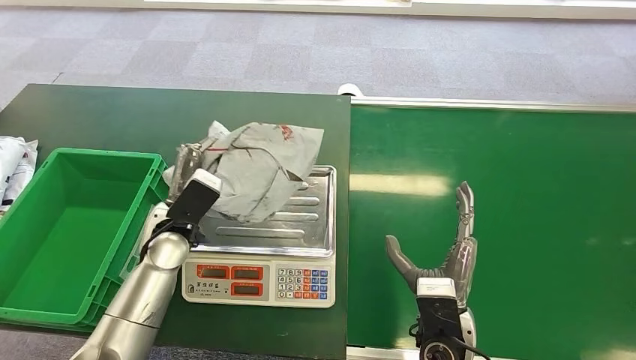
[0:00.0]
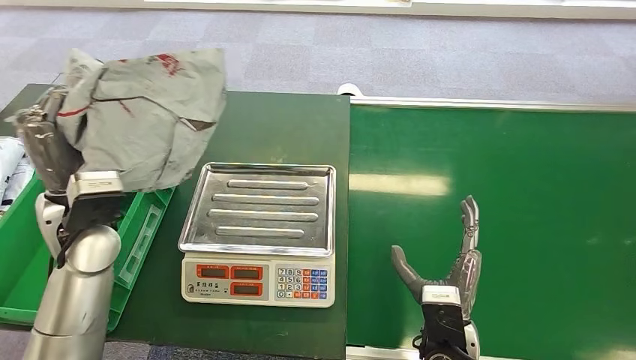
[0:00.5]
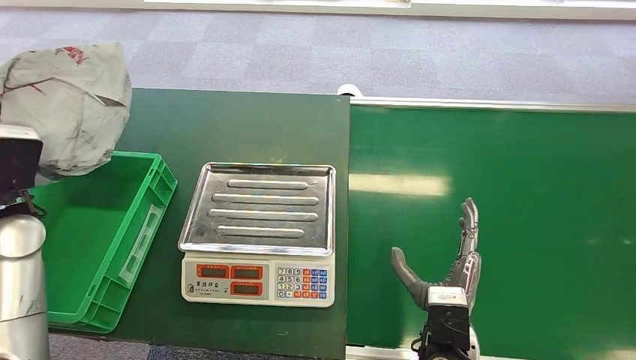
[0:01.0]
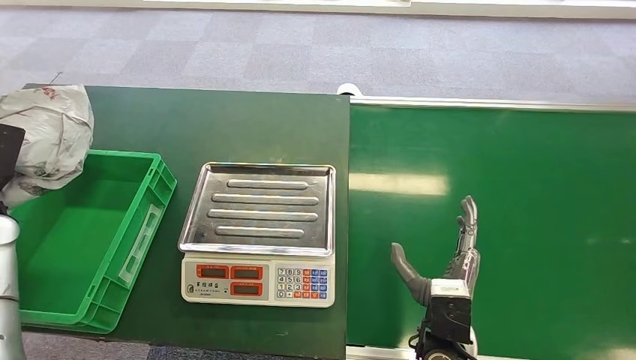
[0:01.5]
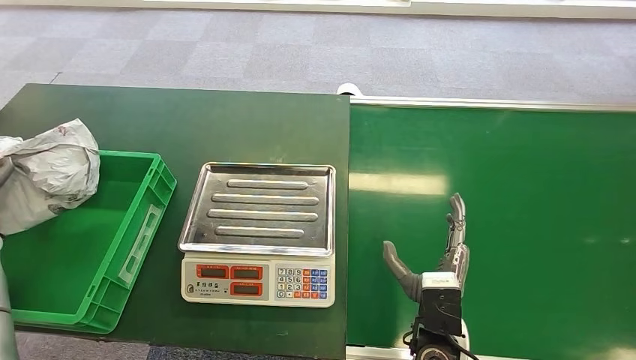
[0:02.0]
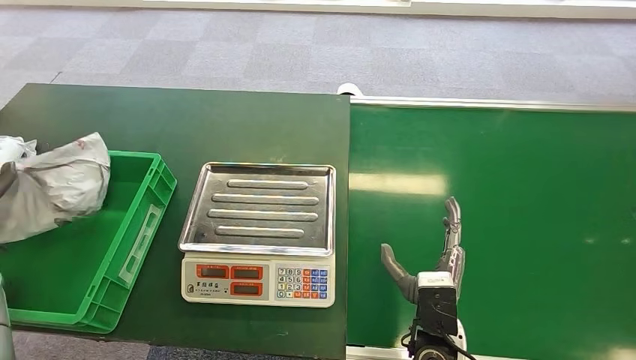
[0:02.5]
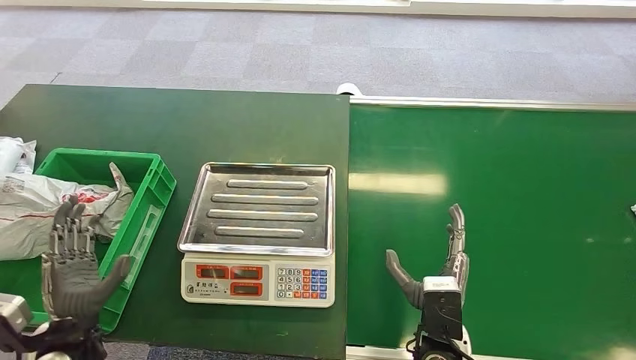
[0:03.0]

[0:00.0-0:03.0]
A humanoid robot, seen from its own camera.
Step, 0:01.0 to 0:03.0: Place the package into the parcel locker.
0:00.0 to 0:01.5: The left hand goes roughly 30 cm to the left.
0:01.5 to 0:03.0: The left hand goes approximately 25 cm to the right, backward and downward.

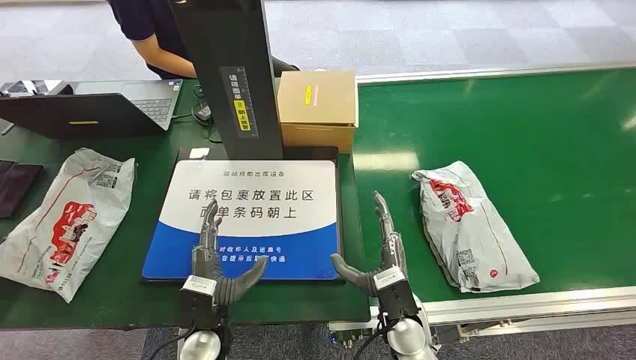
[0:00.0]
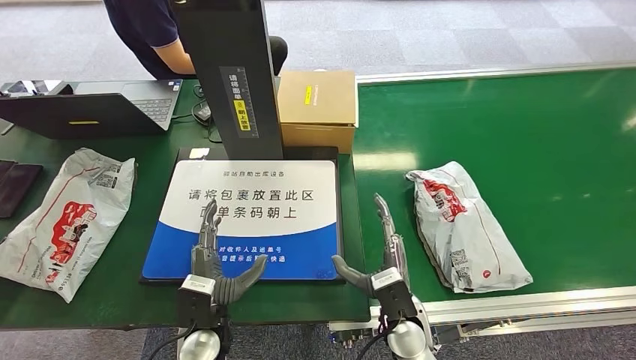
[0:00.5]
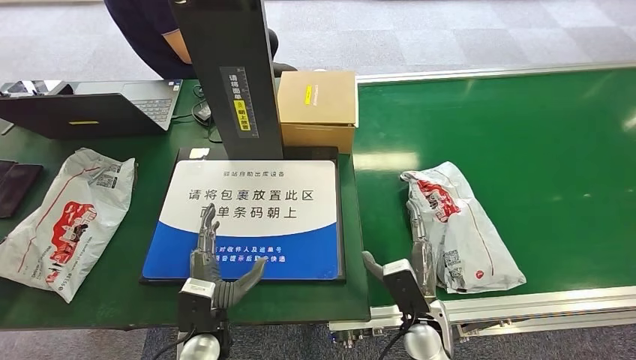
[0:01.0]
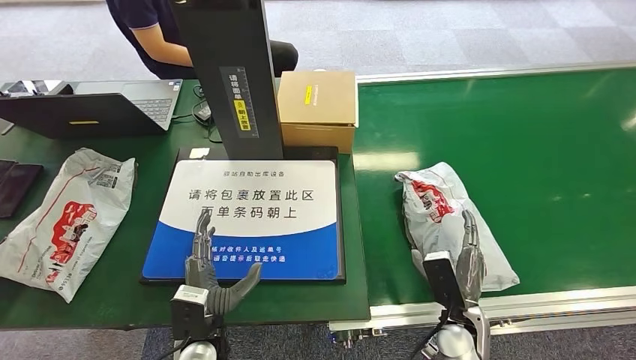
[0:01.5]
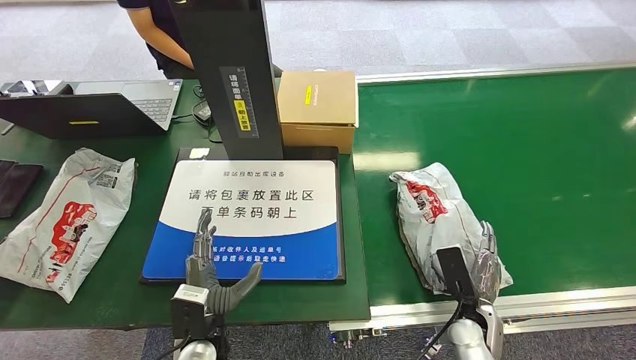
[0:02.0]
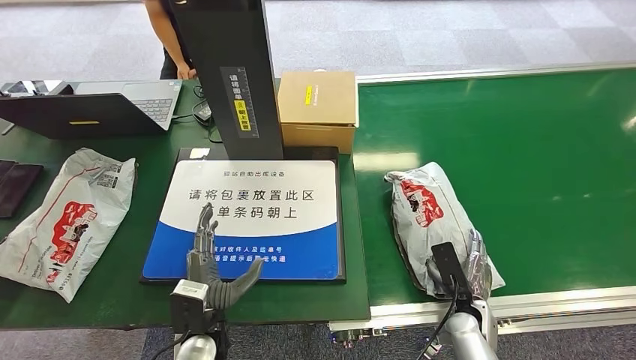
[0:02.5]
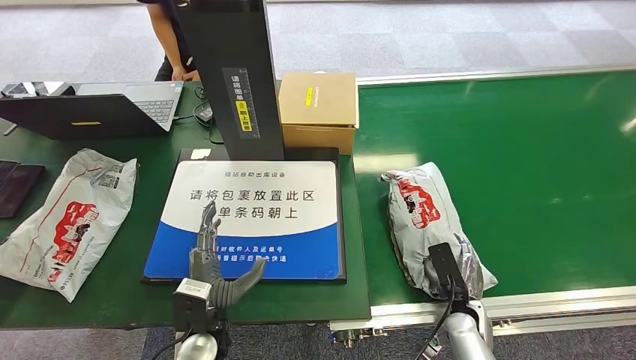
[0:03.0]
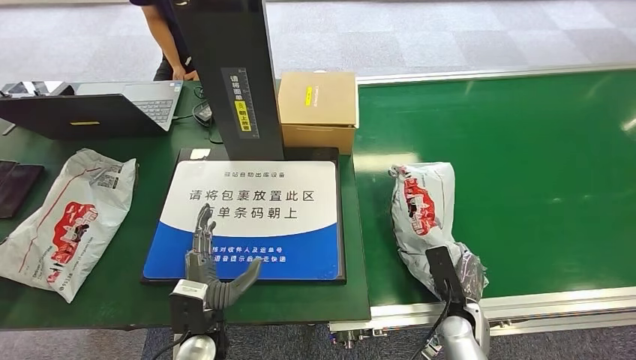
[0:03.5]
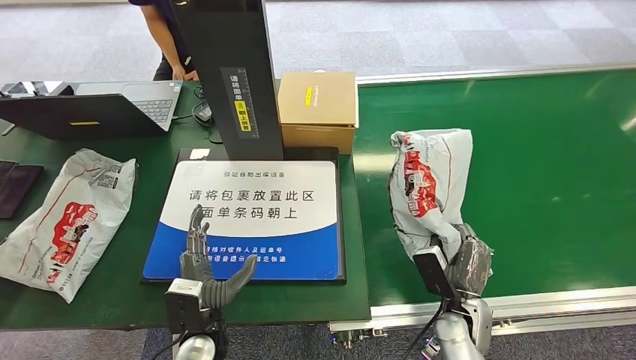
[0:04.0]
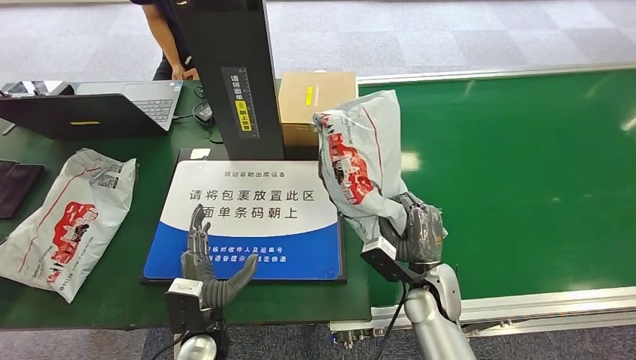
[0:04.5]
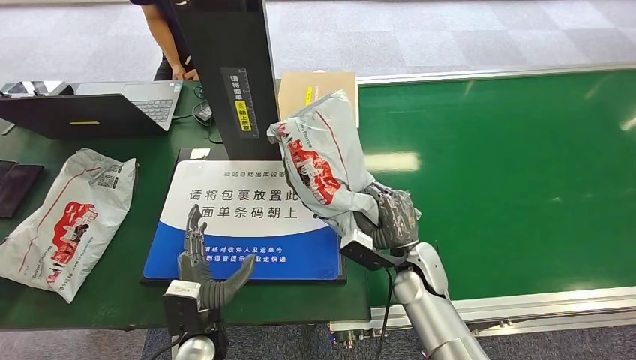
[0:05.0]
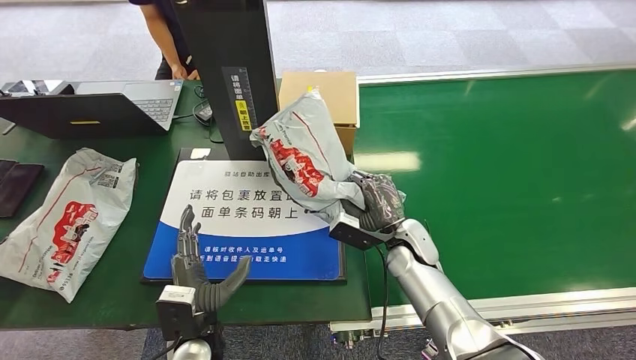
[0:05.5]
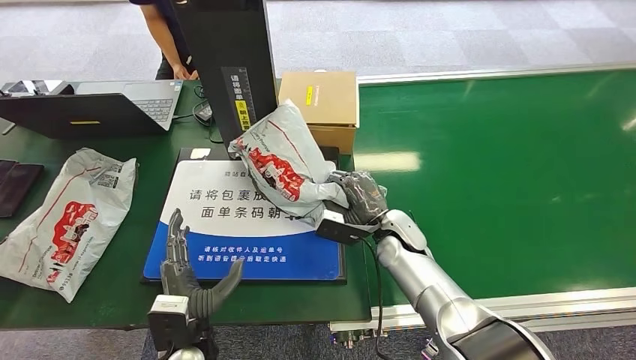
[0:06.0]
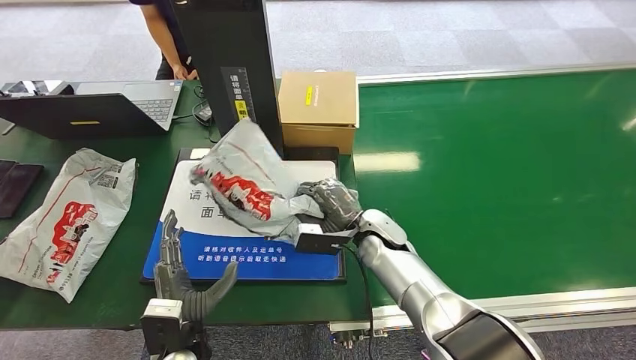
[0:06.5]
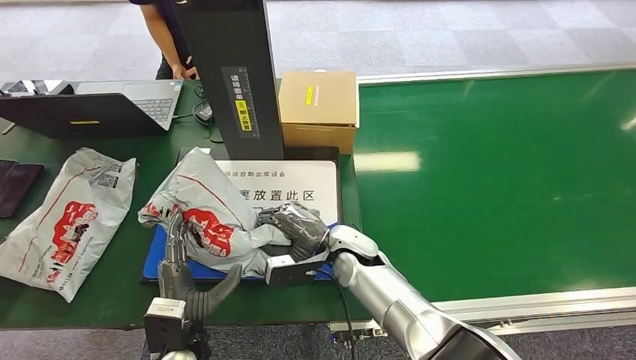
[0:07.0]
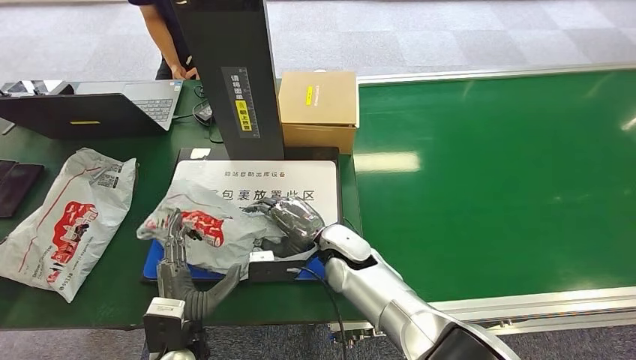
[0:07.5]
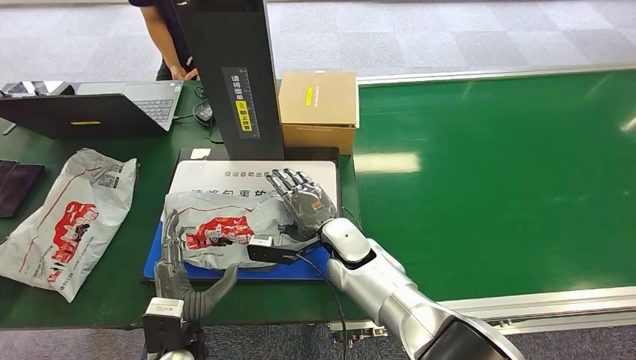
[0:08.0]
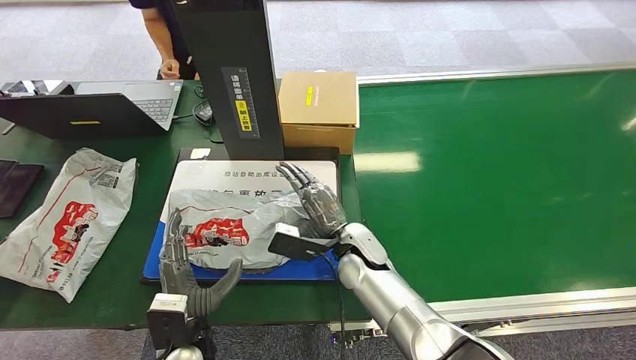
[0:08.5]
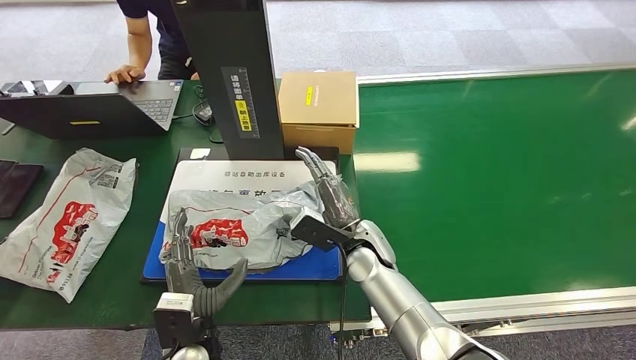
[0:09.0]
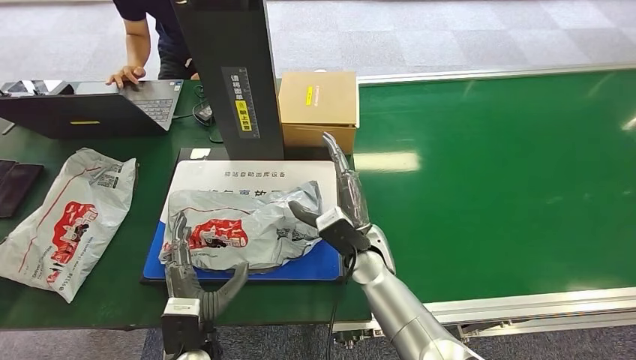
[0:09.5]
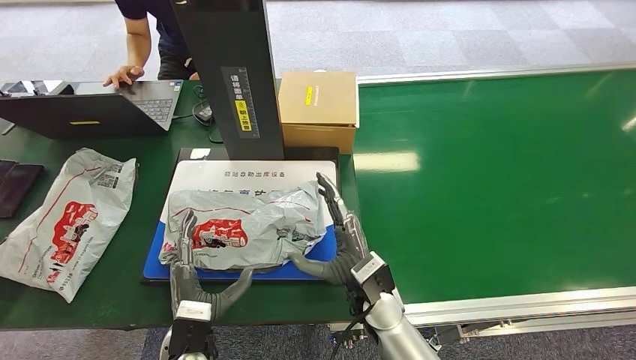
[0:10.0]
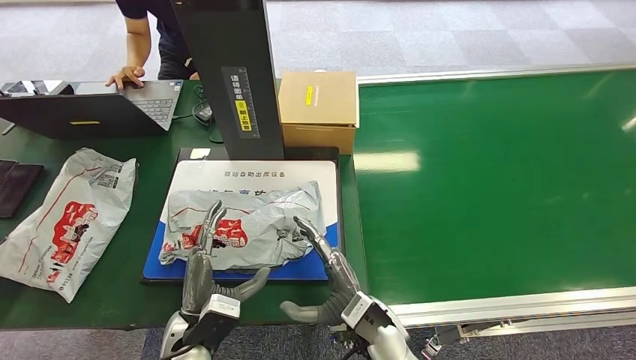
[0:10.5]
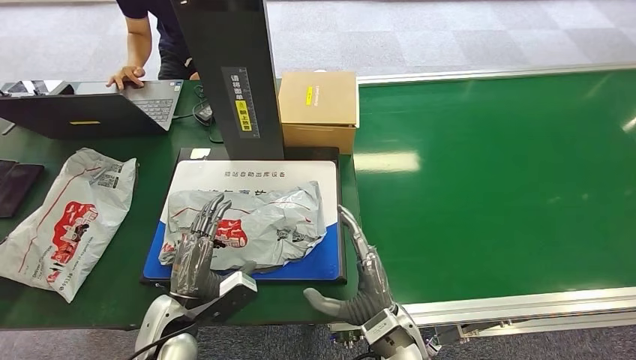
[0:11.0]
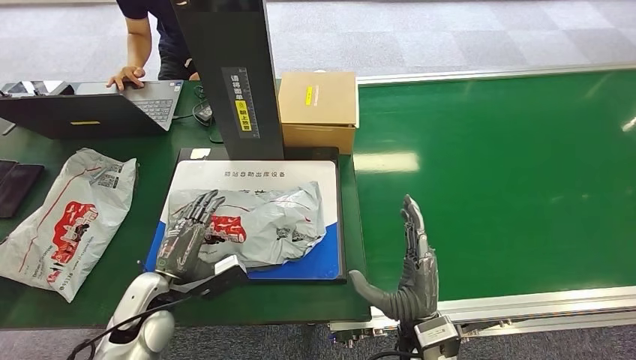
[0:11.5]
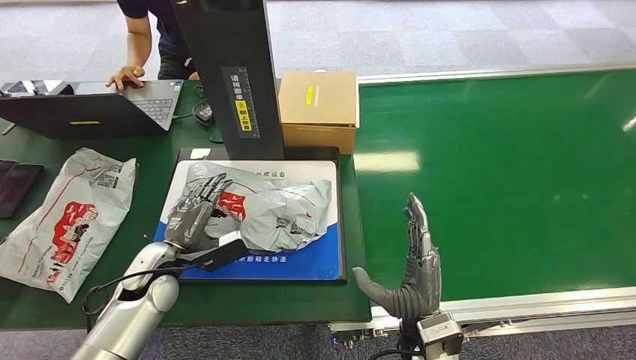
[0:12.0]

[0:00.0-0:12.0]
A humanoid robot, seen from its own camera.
Step, 0:00.0 to 0:04.5: Pick up the package from the conveyor belt.
Step, 0:05.0 to 0:09.0: Place the package onto the inbound machine.
0:02.0 to 0:04.0: The hands make only small movements.
0:04.0 to 0:06.0: The right hand is displaced forward, to the left and upward by about 20 cm.
0:06.0 to 0:08.0: The right hand shifts roughly 10 cm to the left.
0:08.0 to 0:10.0: The right hand moves backward, roughly 10 cm.
0:10.0 to 0:12.0: The left hand heads forward and to the left, covering some 15 cm. The right hand shifts approximately 10 cm backward and to the right.

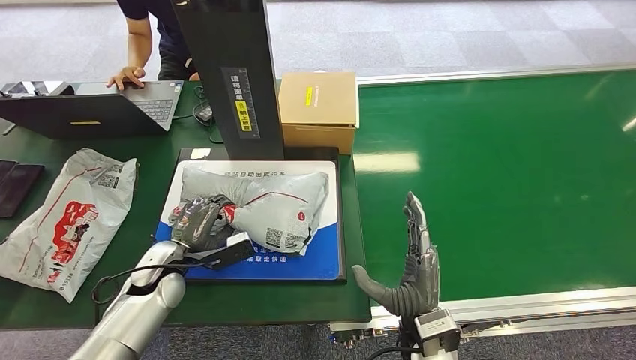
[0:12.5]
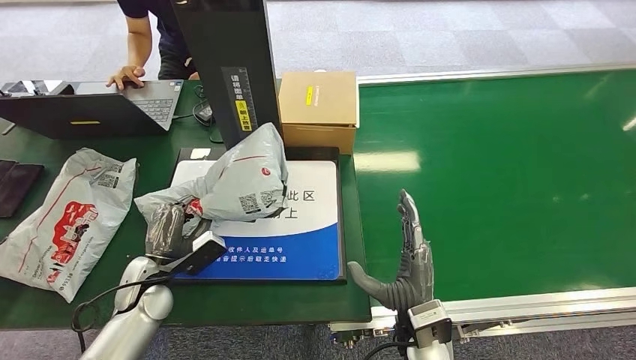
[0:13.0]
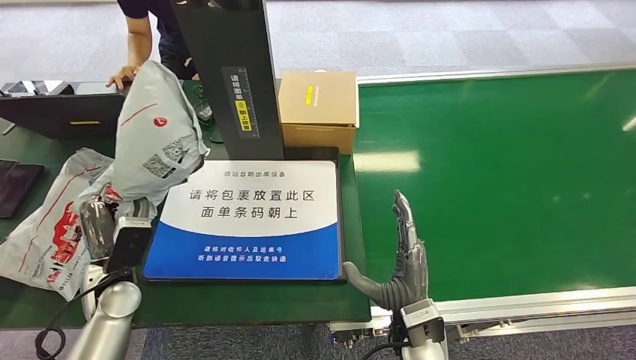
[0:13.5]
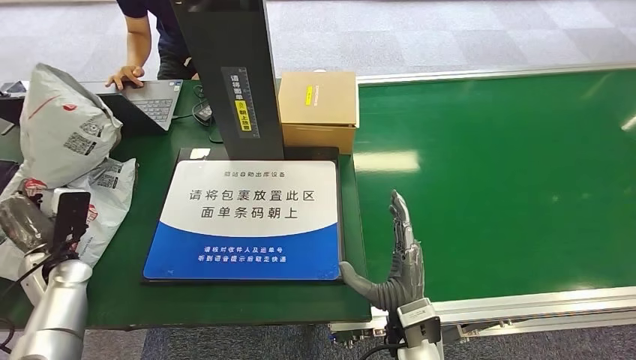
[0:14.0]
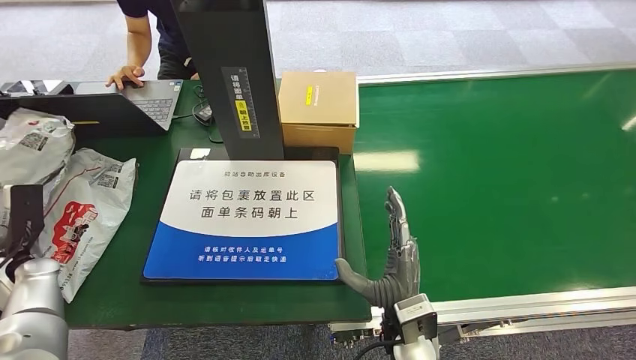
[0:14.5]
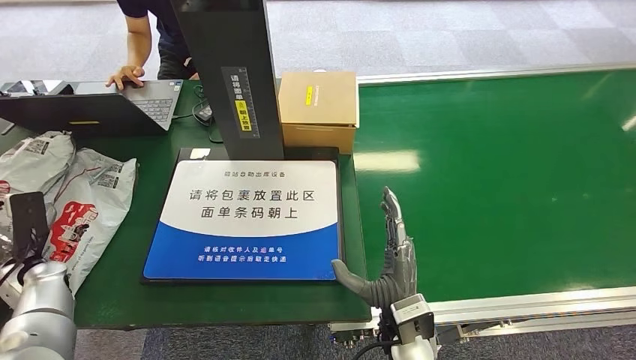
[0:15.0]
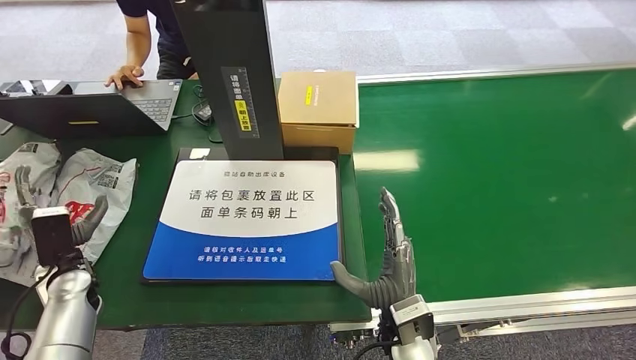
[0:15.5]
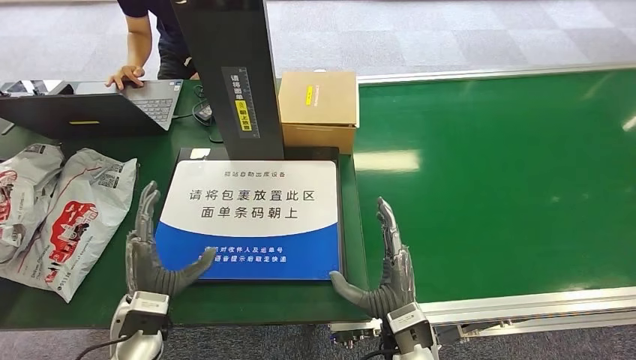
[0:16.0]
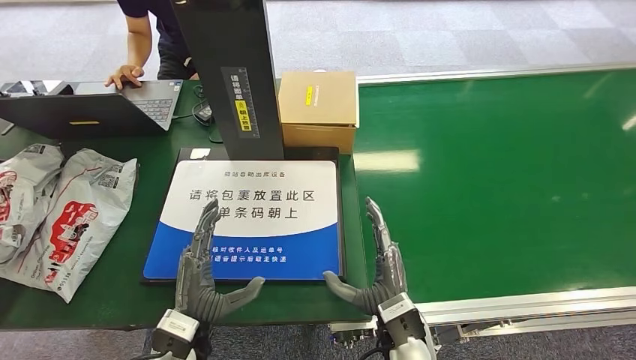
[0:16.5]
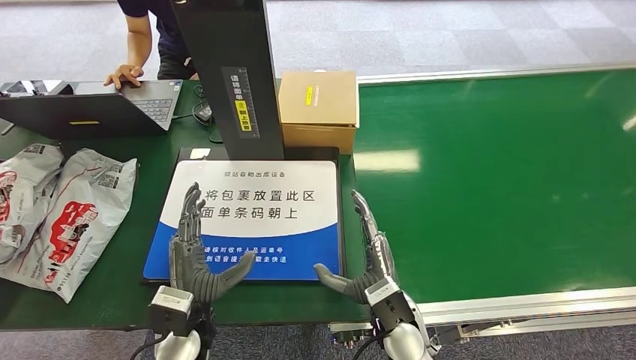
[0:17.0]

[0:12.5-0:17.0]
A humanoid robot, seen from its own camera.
Step, 0:14.0 to 0:17.0: Place the package into the parcel locker.
0:12.5 to 0:14.5: The left hand moves to the left, roughly 25 cm.
0:14.5 to 0:17.0: The left hand is displaced to the right by some 35 cm.
